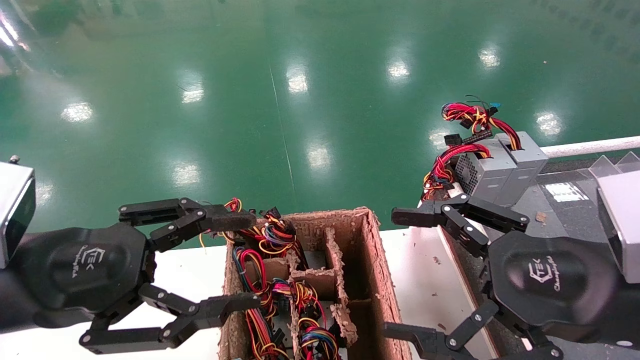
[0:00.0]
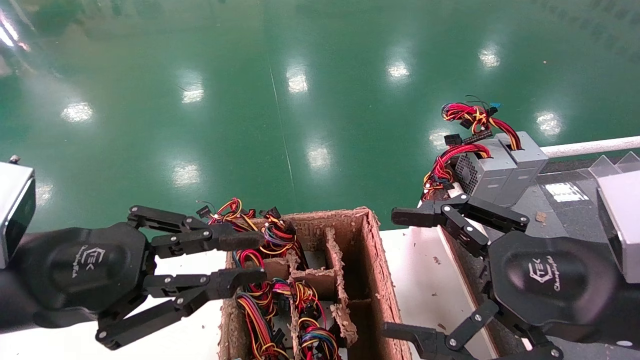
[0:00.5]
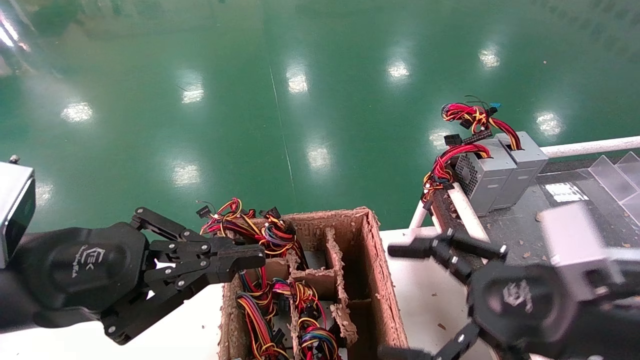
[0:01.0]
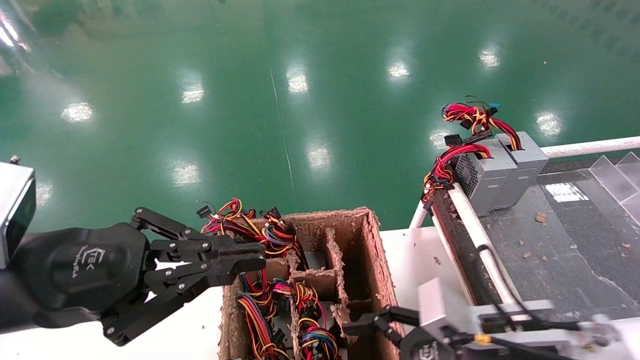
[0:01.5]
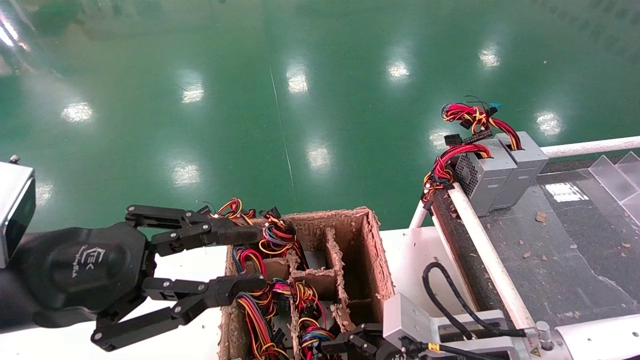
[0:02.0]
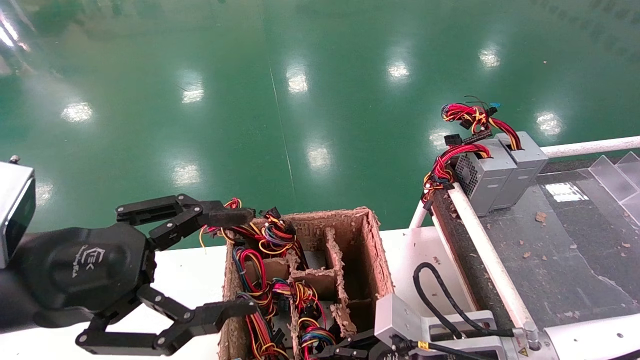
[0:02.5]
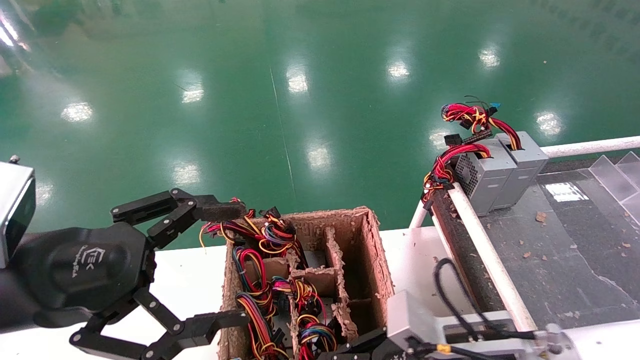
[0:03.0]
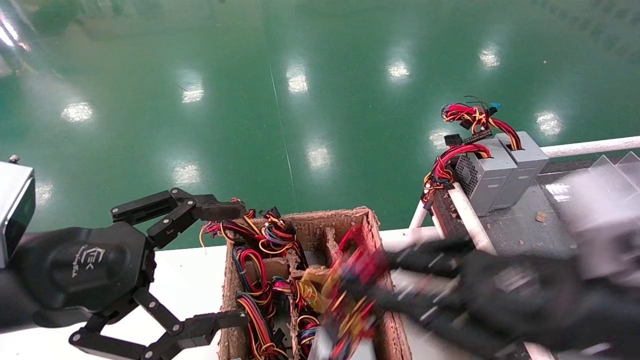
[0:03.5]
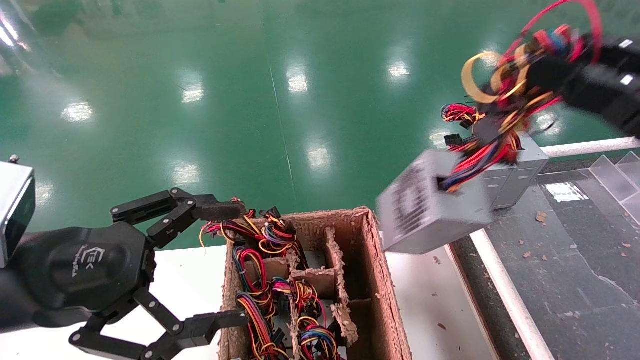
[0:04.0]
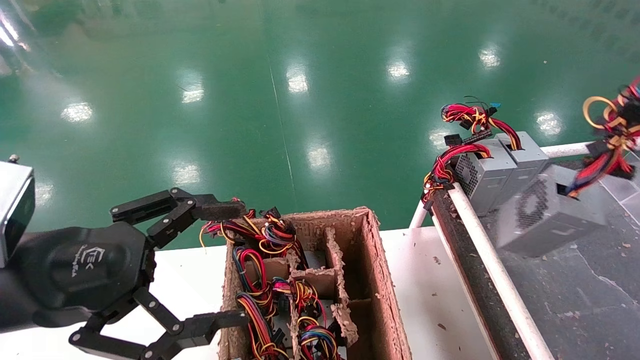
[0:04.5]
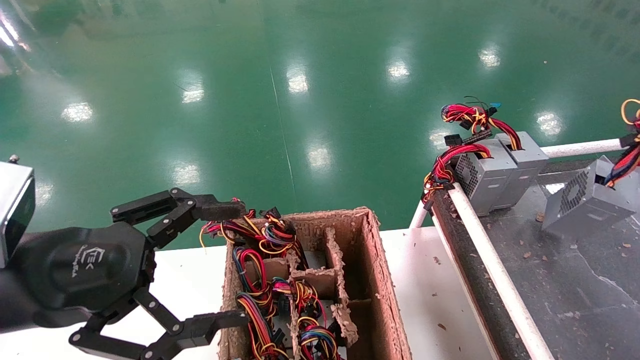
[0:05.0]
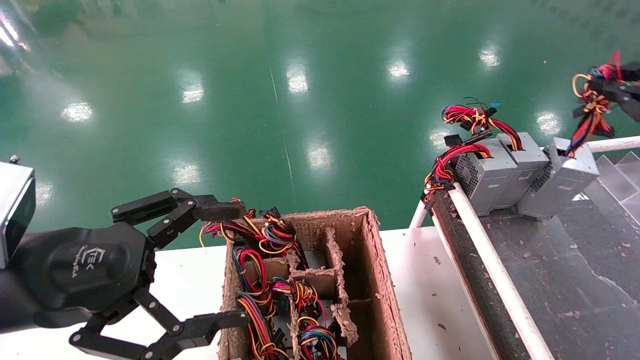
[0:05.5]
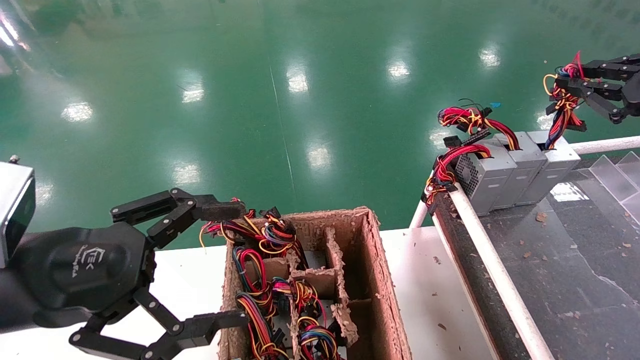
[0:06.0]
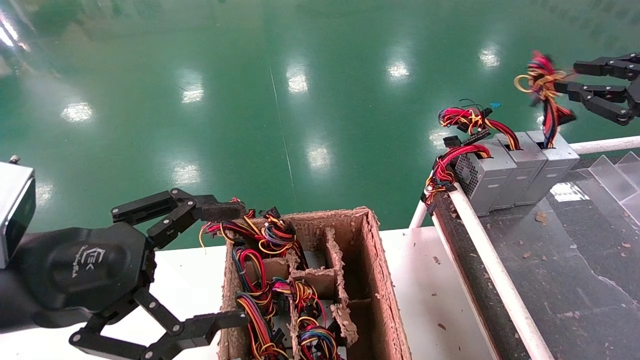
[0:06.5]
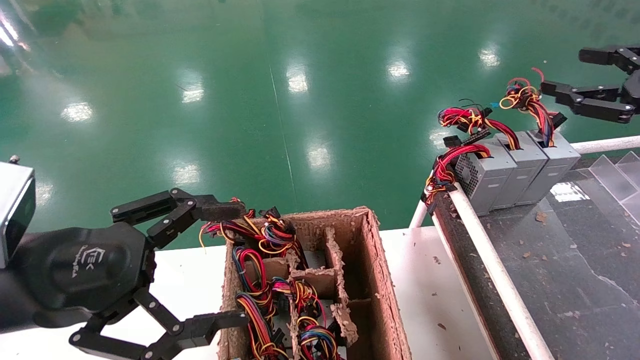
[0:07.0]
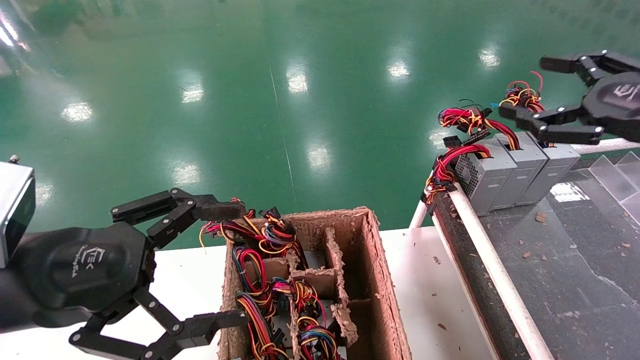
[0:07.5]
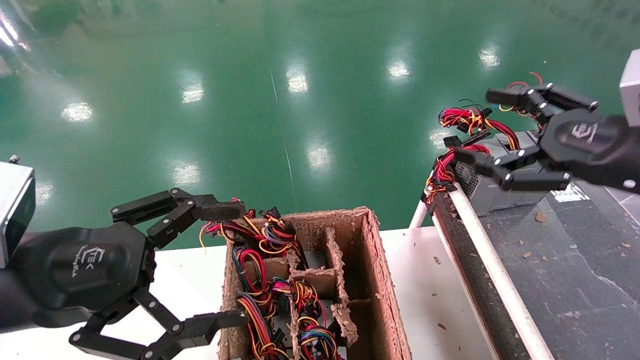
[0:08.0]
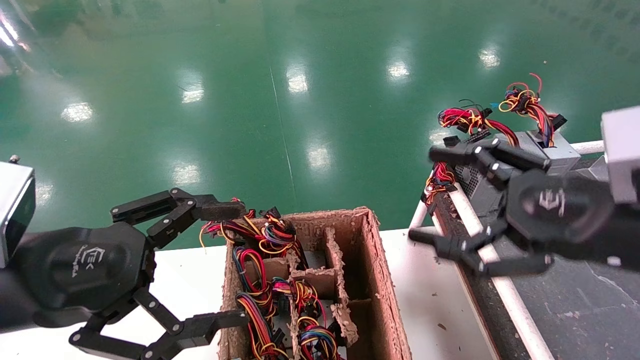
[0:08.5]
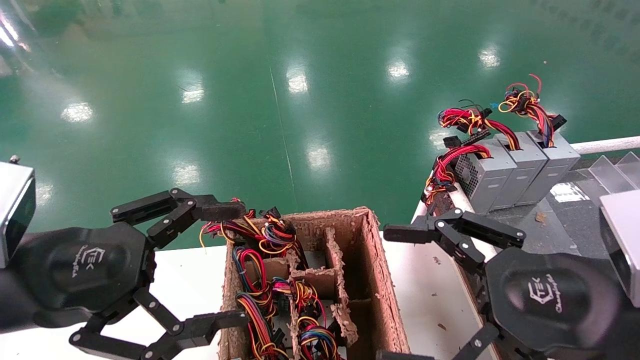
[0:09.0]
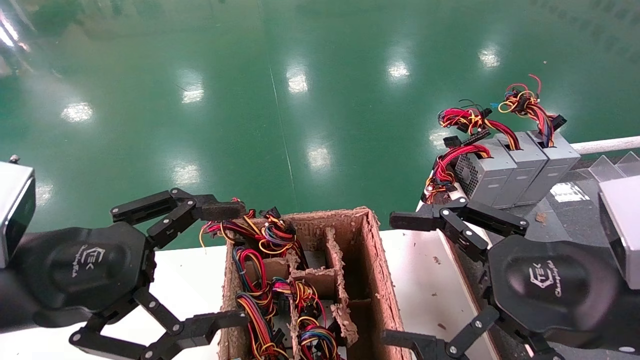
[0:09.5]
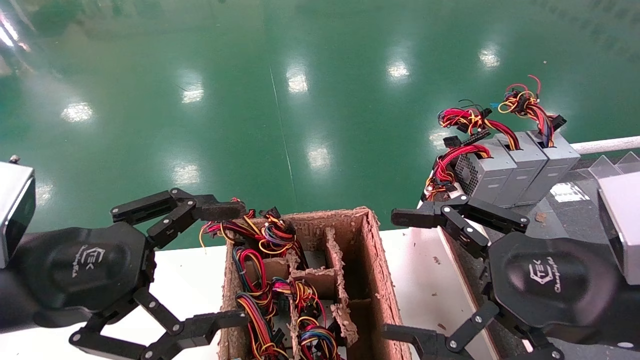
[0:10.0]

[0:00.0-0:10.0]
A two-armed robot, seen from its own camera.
Step, 0:01.5 to 0:02.5: Grab and lift the power supply from the large box.
Step, 0:03.0 to 0:06.0: Place the power supply on the operating table.
0:00.0 to 0:02.0: The right gripper heads downward, to the left and forward, covering roughly 15 cm; the left gripper closes.
0:02.0 to 0:04.0: The left gripper opens up. Meanwhile the right gripper moves upward and to the right, roughly 30 cm, and closes its fingers.
0:04.0 to 0:06.0: The right gripper travels forward and to the right by about 20 cm.
0:06.0 to 0:08.0: The right gripper heads to the left, downward and backward, covering approximately 15 cm, and opens.
0:08.0 to 0:10.0: The right gripper shifts about 15 cm backward, to the left and downward.

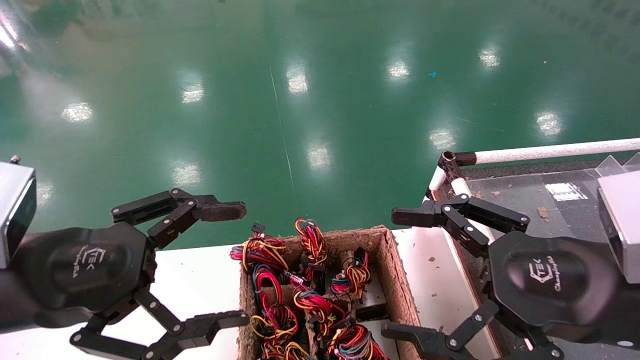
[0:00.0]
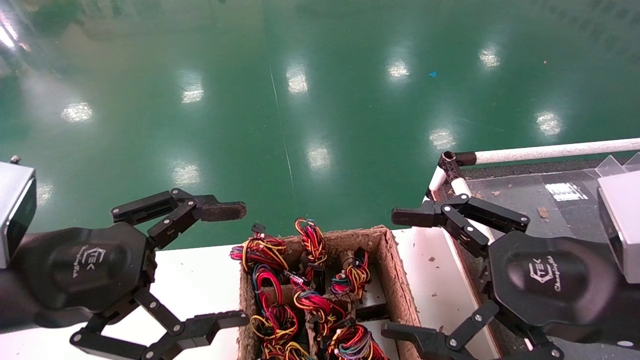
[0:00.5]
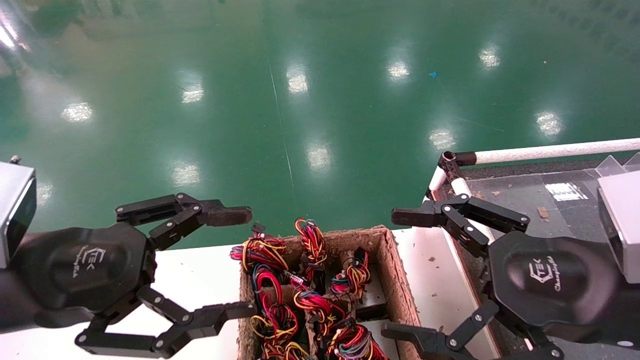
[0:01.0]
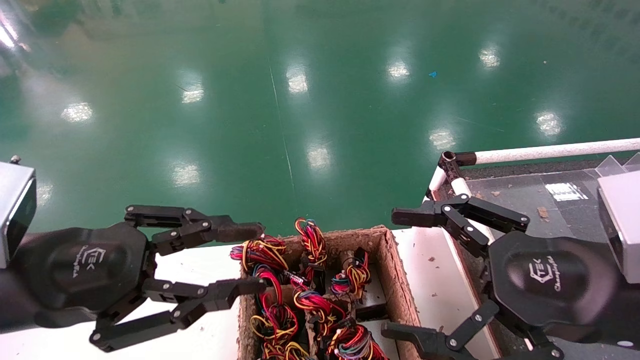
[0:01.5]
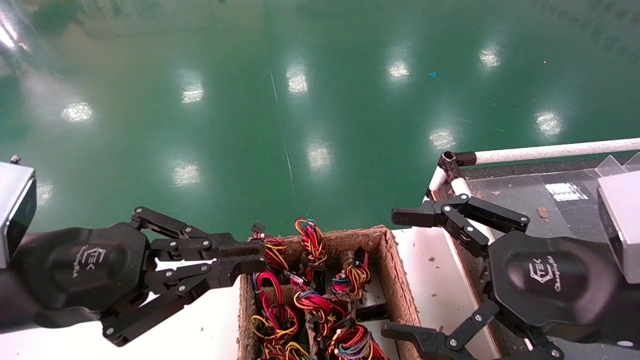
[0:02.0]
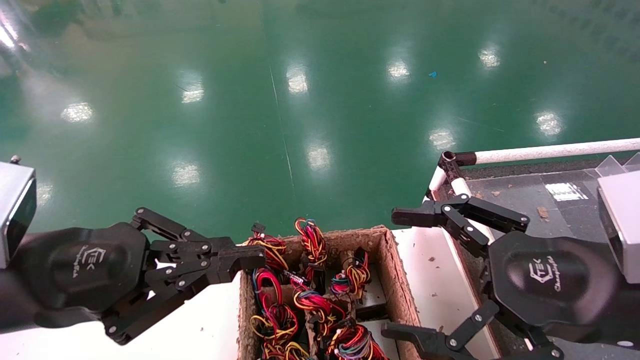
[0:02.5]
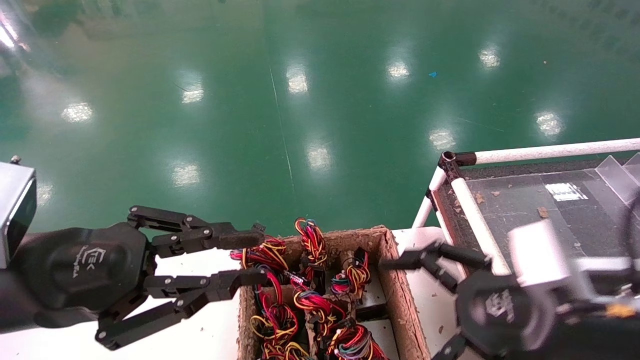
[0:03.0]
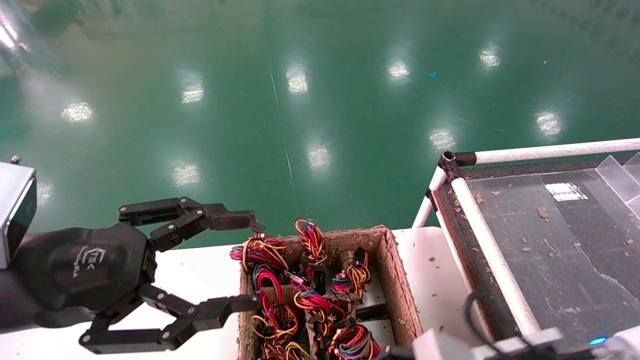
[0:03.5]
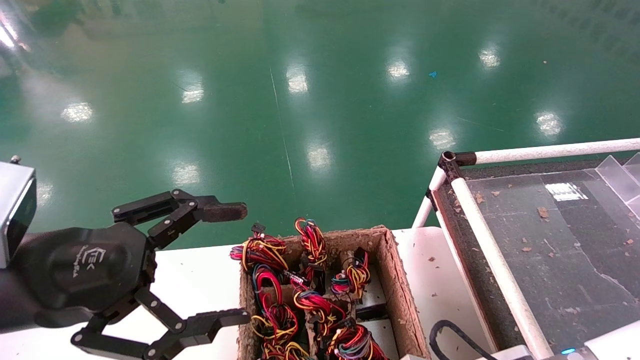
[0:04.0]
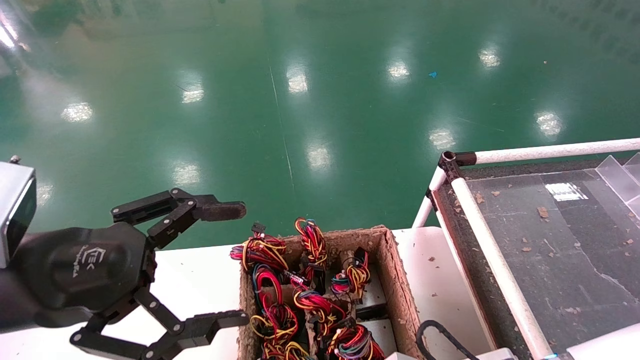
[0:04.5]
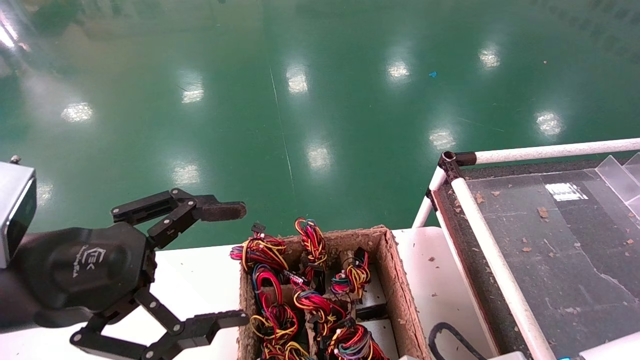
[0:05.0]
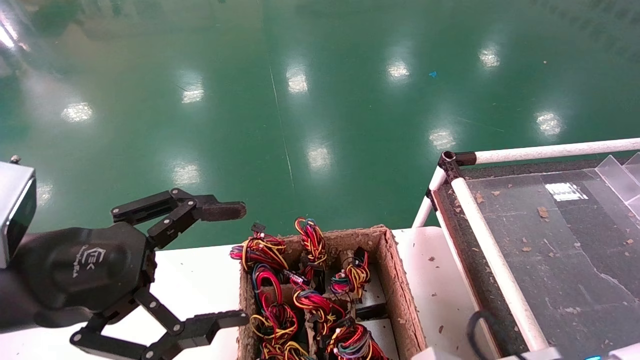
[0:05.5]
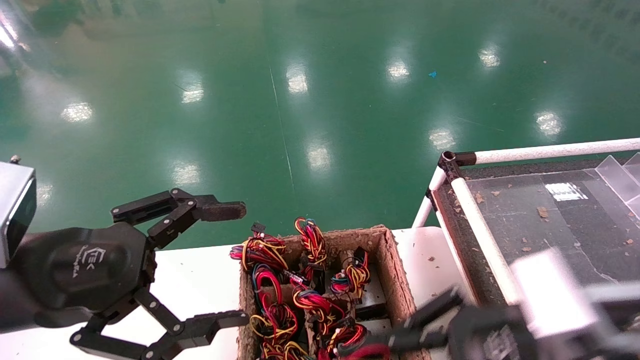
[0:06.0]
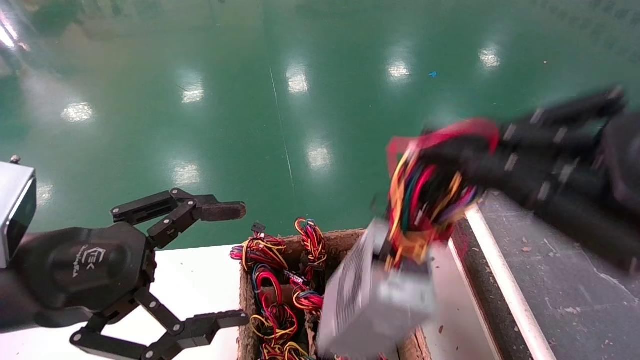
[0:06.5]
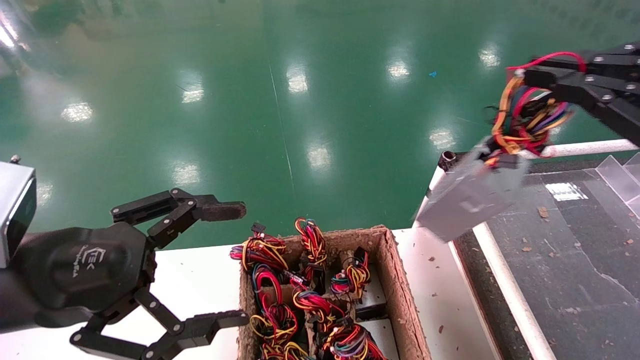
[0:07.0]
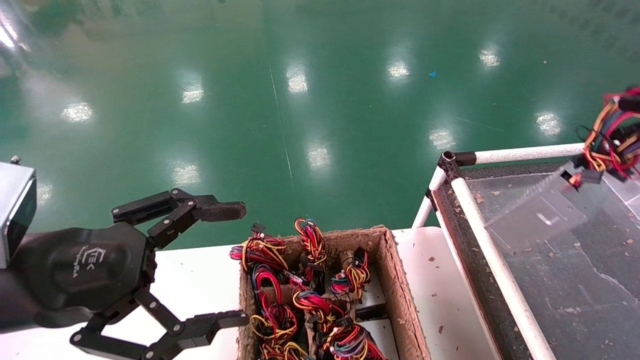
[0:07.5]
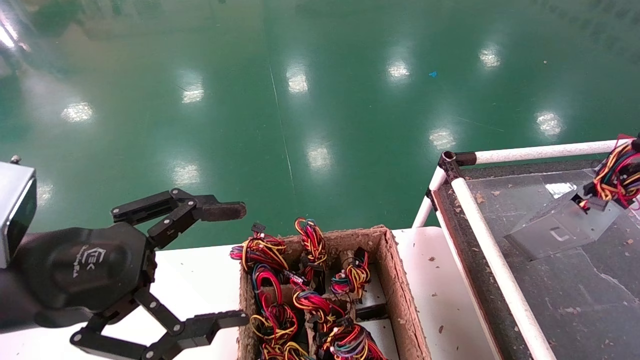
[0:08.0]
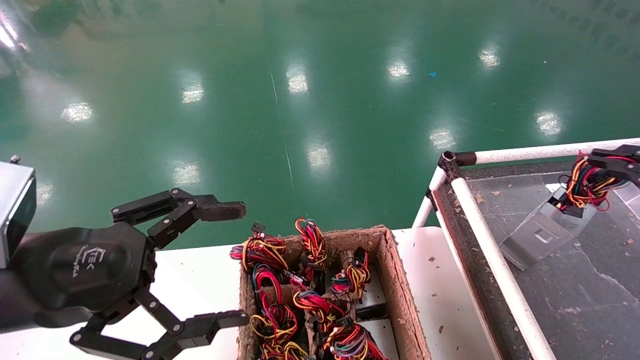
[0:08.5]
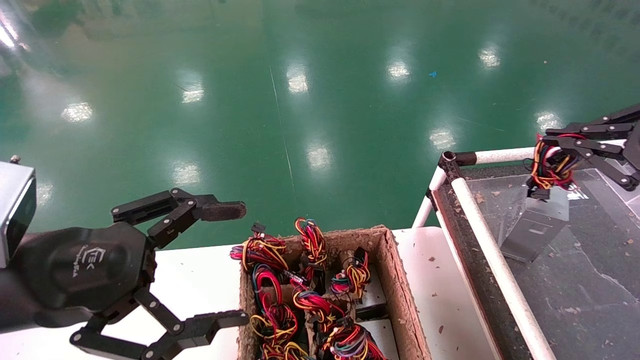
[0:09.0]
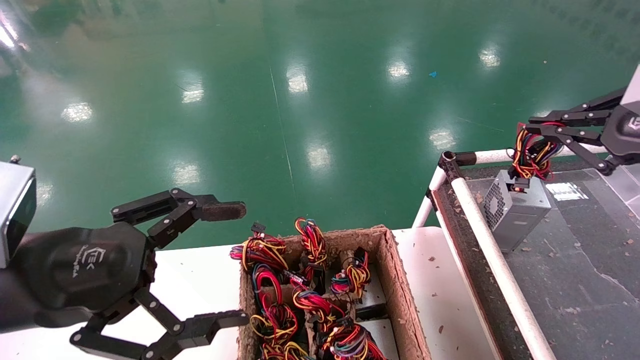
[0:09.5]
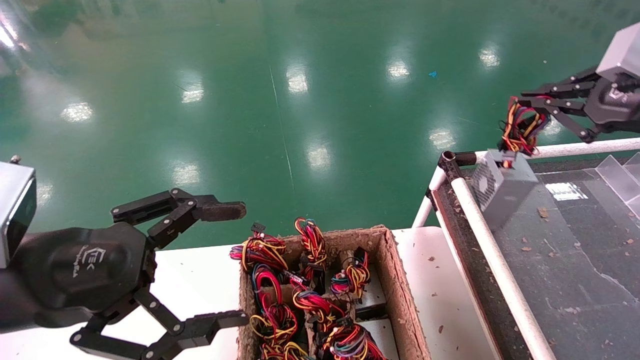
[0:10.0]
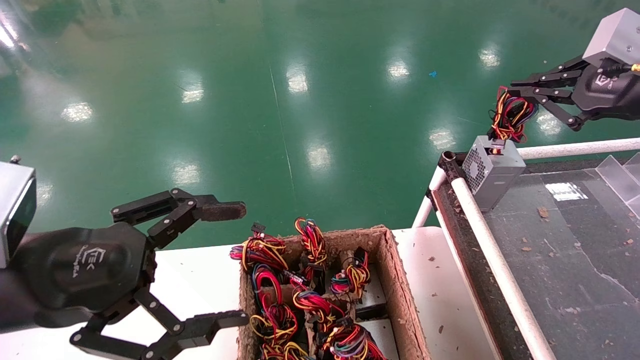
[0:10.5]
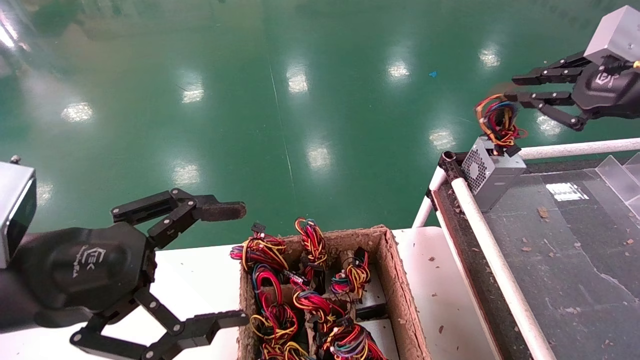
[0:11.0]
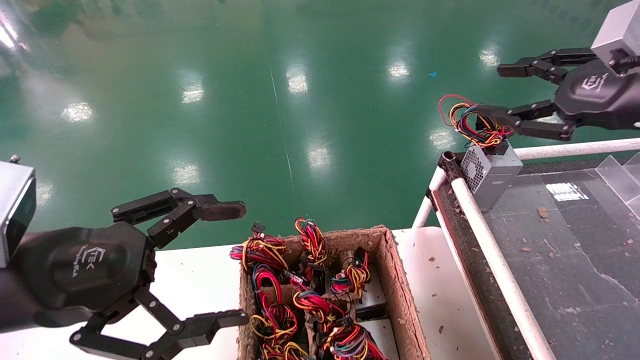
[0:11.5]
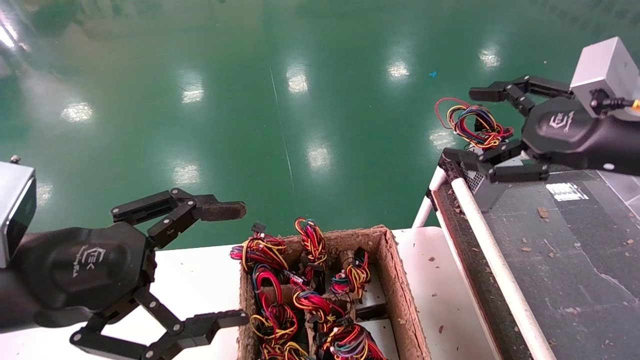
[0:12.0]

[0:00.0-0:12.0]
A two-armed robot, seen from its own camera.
Step, 0:03.0 to 0:05.0: Grab and lift the power supply from the large box.
Step, 0:05.5 to 0:11.0: Place the power supply on the operating table.
0:00.0 to 0:02.0: The left gripper closes up.
0:02.0 to 0:04.0: The right gripper goes approximately 15 cm downward and to the left, while the left gripper opens its fingers.
0:04.0 to 0:06.0: The right gripper is displaced upward by approximately 10 cm, and closes.
0:06.0 to 0:08.0: The right gripper heads to the right, covering about 25 cm.
0:08.0 to 0:10.0: The right gripper is displaced forward, to the left and upward by some 15 cm.
0:10.0 to 0:12.0: The right gripper shifts roughly 5 cm to the left, and opens.
